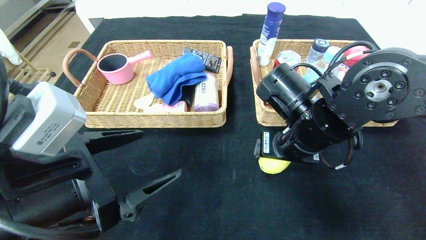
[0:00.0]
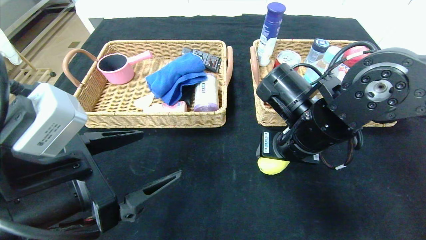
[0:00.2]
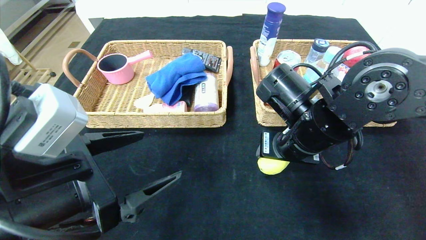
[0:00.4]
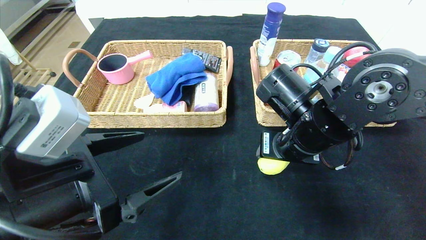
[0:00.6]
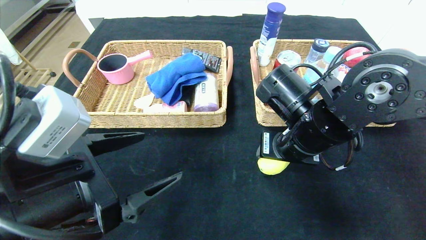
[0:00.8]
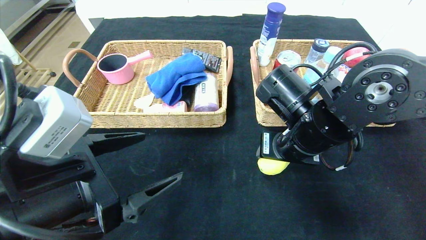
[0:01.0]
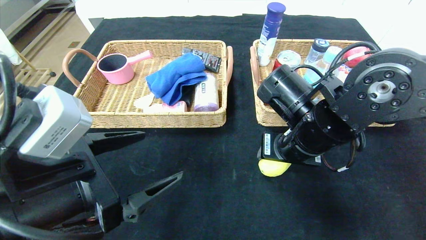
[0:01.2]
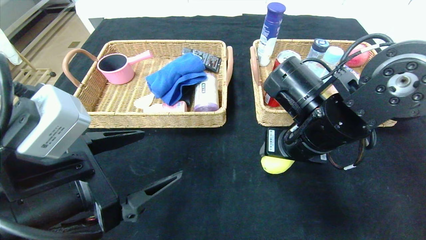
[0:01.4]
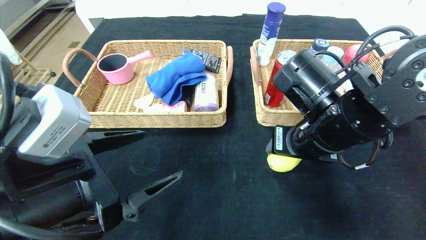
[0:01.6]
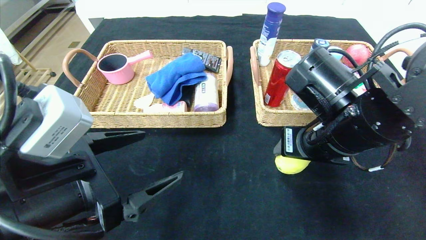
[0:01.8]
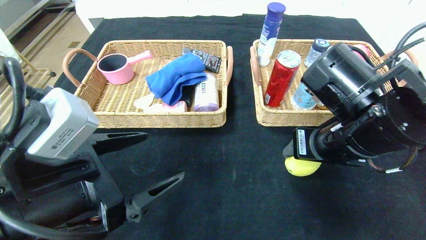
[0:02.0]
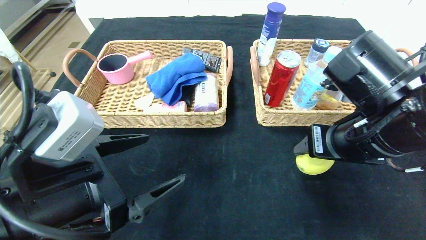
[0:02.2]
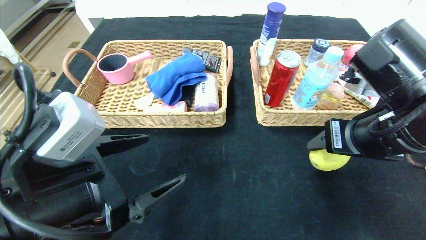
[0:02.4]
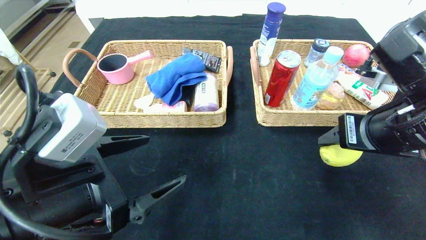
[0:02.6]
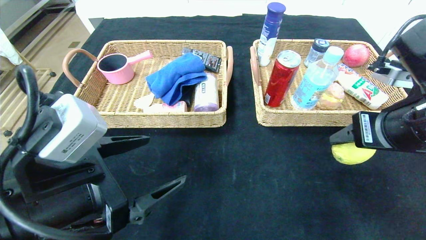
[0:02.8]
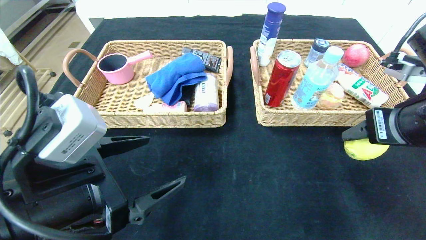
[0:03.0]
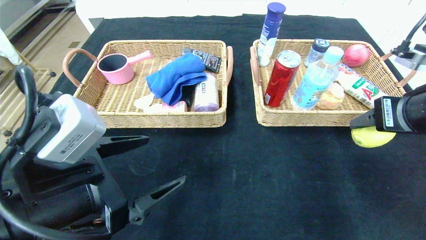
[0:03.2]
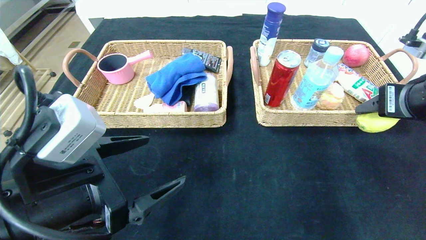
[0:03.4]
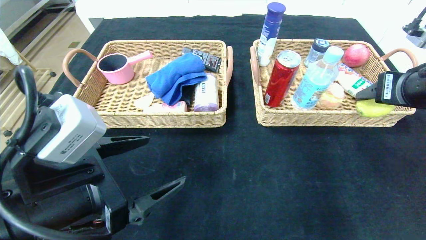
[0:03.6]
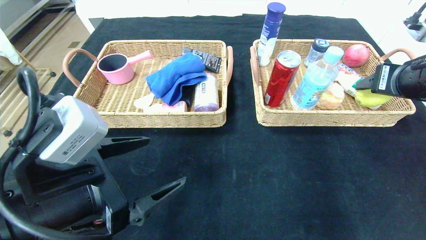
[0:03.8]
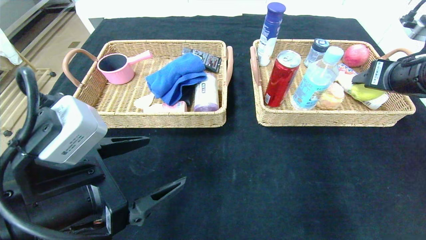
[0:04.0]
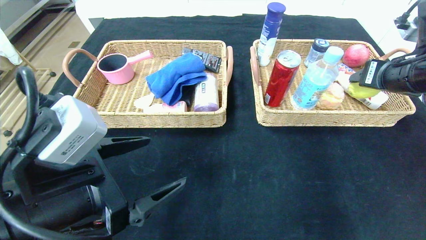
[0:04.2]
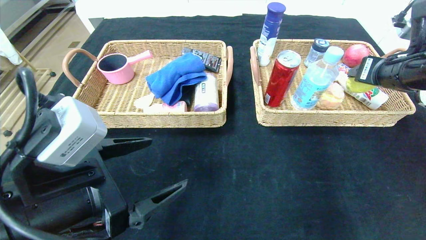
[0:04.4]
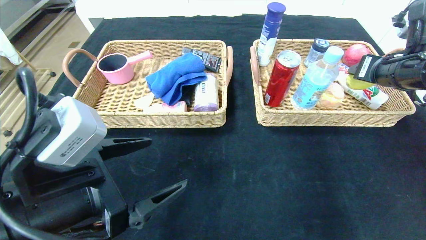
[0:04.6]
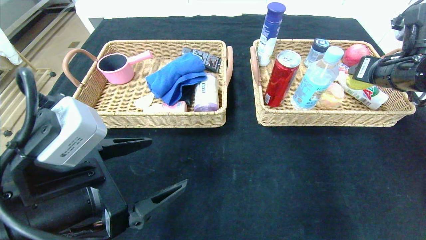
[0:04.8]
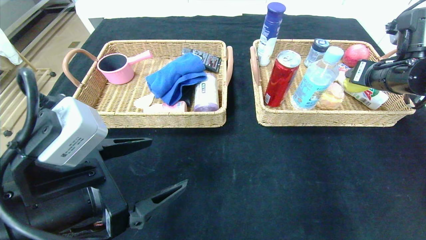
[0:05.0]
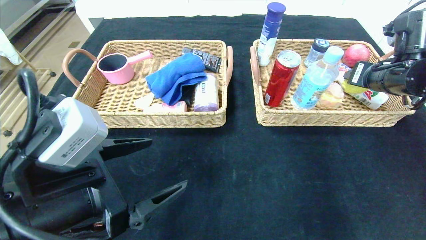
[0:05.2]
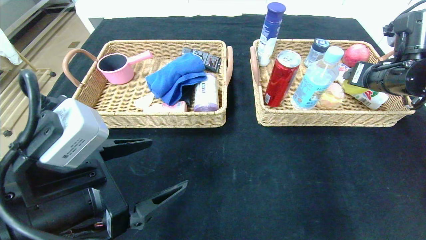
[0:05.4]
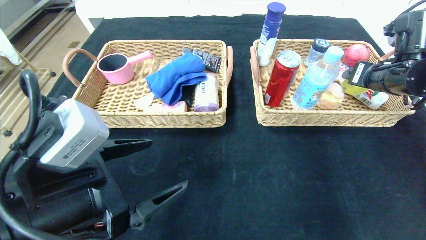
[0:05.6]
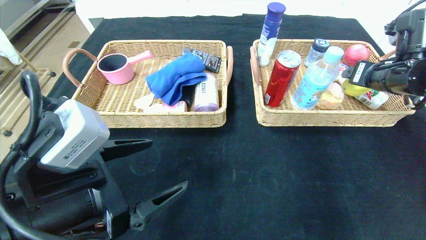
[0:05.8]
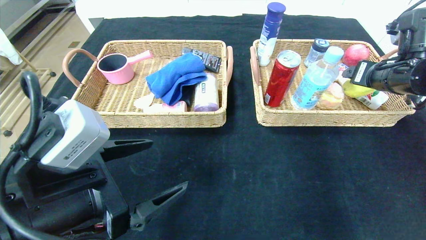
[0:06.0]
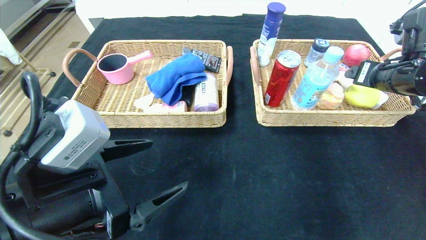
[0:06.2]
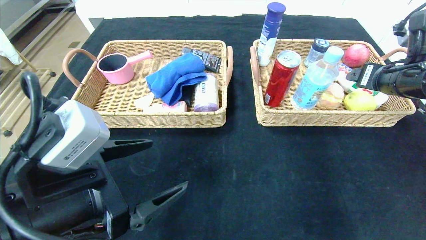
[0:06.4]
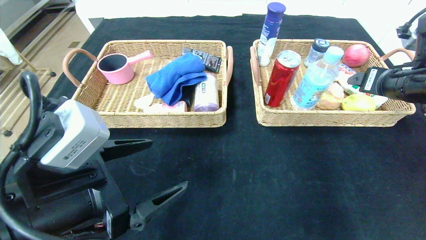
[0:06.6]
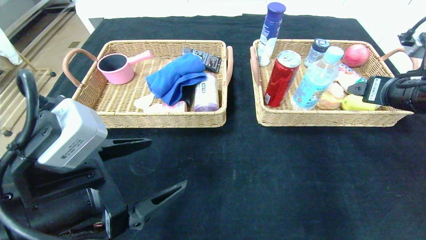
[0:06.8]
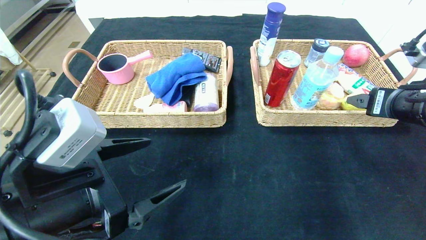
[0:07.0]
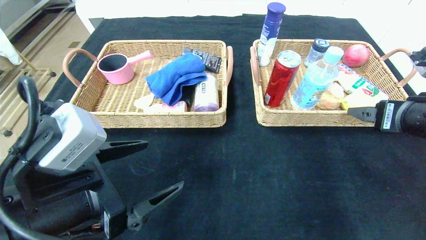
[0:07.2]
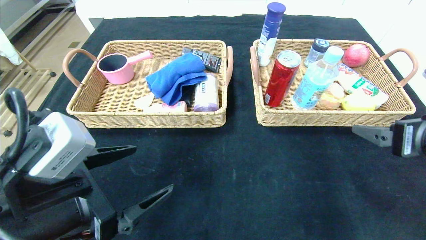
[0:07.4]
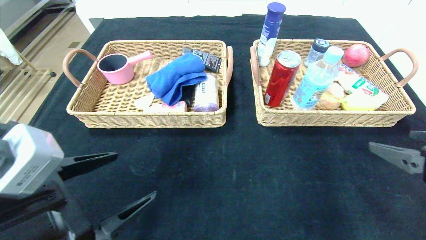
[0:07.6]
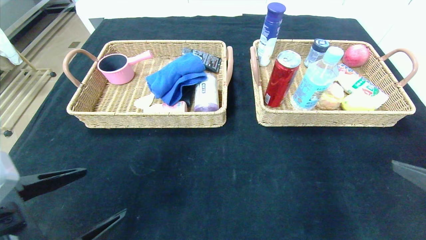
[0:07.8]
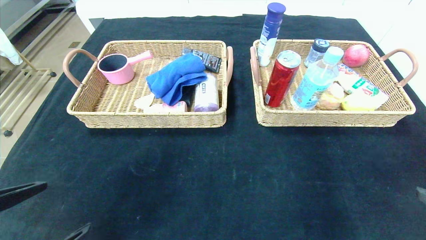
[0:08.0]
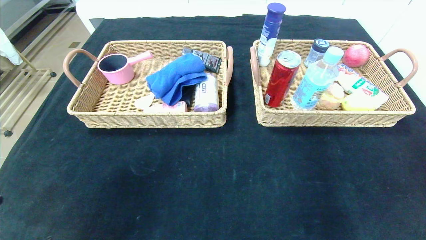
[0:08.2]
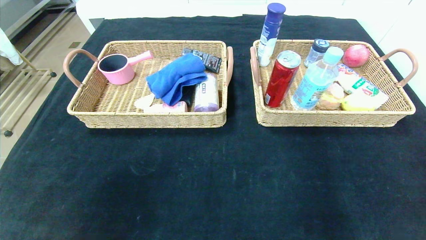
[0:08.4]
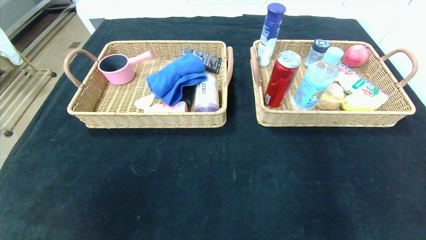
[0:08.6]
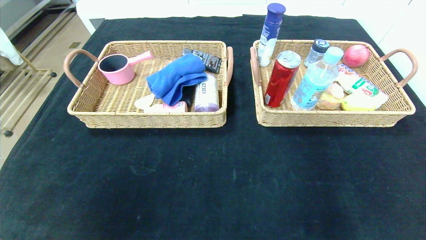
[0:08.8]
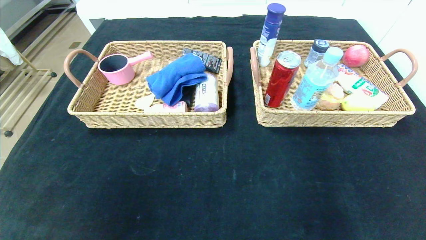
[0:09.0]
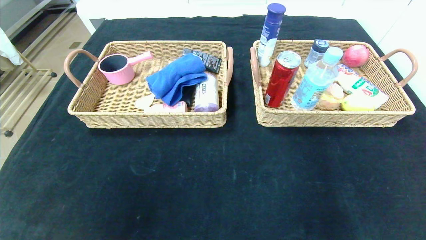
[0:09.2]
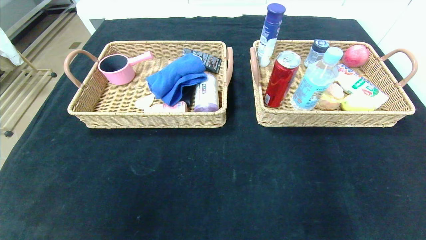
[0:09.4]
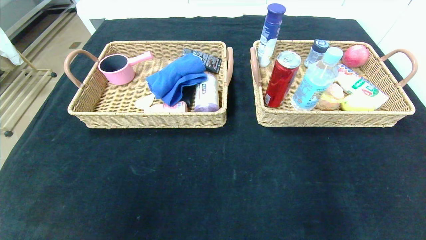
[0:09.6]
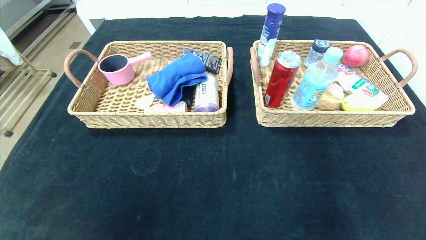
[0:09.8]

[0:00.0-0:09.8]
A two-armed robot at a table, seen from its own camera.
Step, 0:00.0 to 0:06.2: Grasp the lemon and put it in the right basket.
0:00.0 to 0:01.4: The grippers move only a little.
0:01.4 to 0:02.8: The right gripper travels to the right and backward by approximately 10 cm.
0:02.8 to 0:04.2: The right gripper moves forward and to the right, roughly 10 cm.
0:04.2 to 0:05.6: The right gripper opens.
0:05.6 to 0:07.0: The right gripper travels backward by approximately 10 cm.
0:07.0 to 0:08.4: The left gripper travels backward and to the left by about 20 cm; the right gripper is displaced backward by about 25 cm.
0:08.4 to 0:09.8: The left gripper moves backward, roughly 10 cm.
